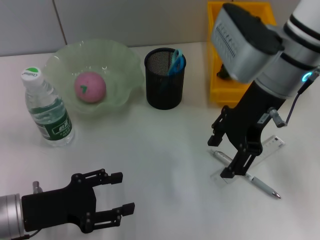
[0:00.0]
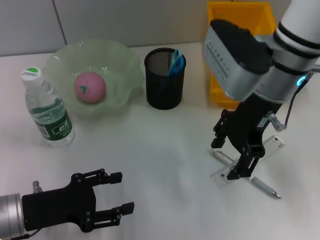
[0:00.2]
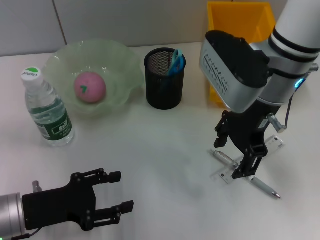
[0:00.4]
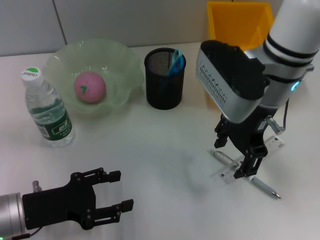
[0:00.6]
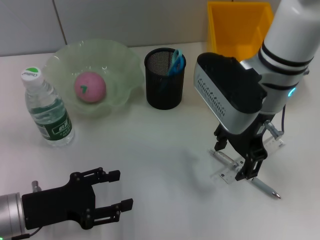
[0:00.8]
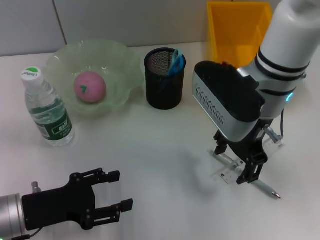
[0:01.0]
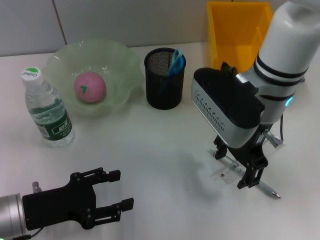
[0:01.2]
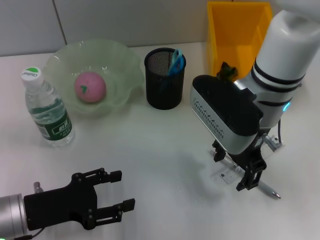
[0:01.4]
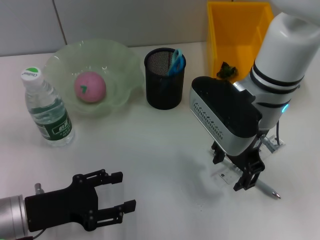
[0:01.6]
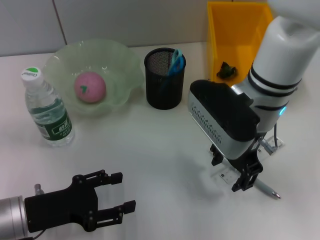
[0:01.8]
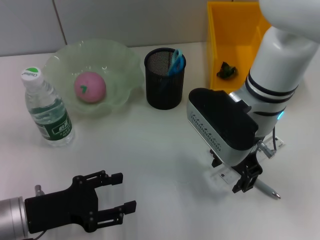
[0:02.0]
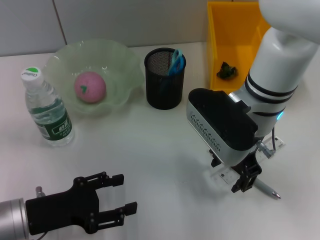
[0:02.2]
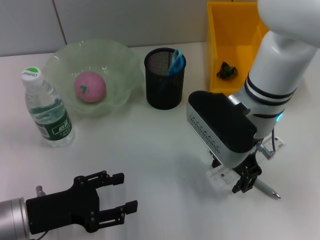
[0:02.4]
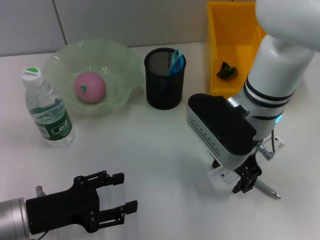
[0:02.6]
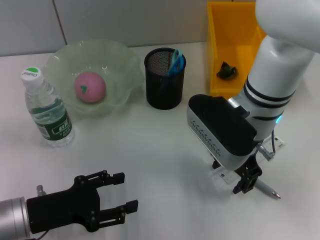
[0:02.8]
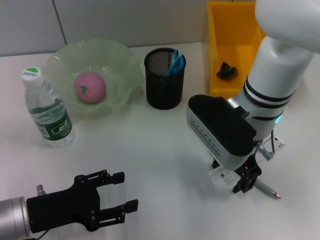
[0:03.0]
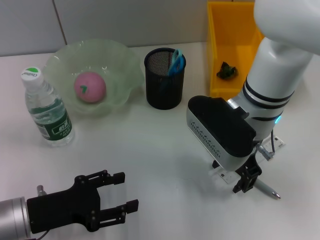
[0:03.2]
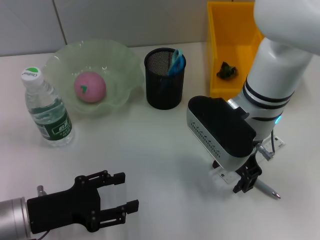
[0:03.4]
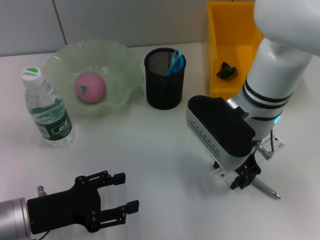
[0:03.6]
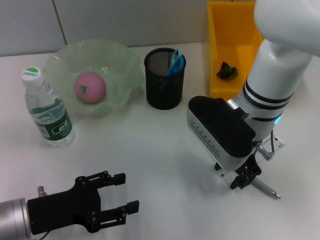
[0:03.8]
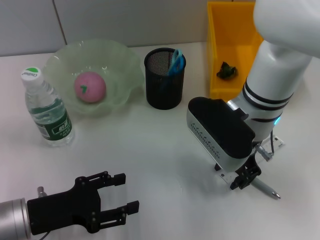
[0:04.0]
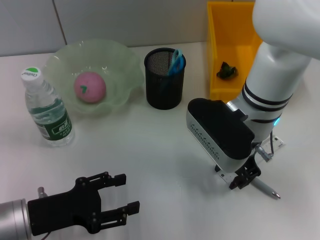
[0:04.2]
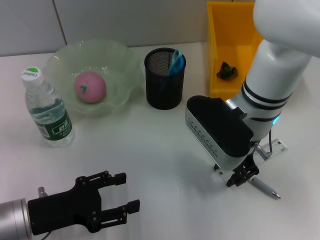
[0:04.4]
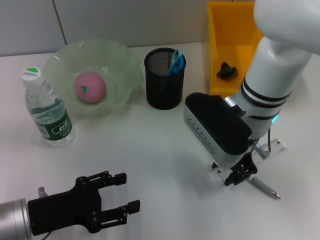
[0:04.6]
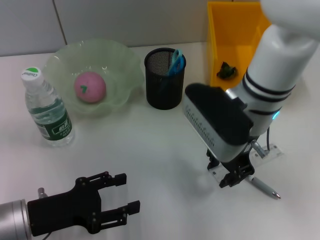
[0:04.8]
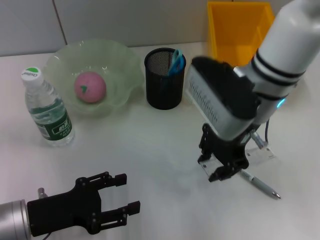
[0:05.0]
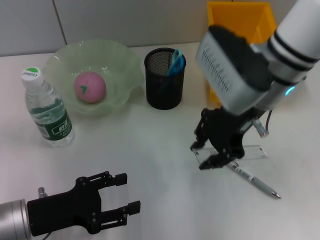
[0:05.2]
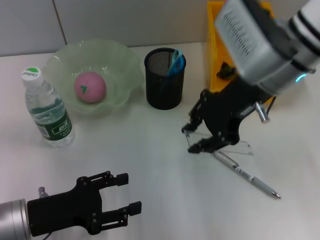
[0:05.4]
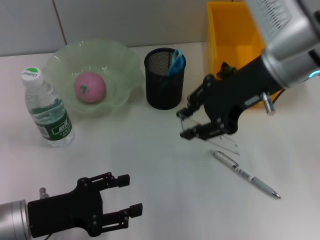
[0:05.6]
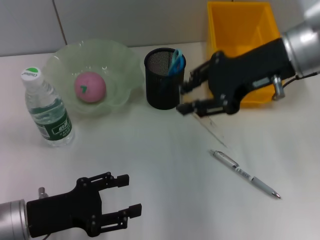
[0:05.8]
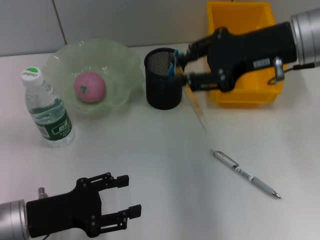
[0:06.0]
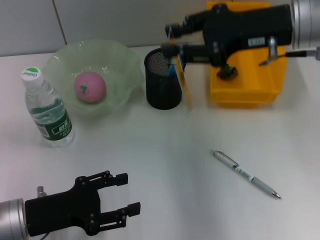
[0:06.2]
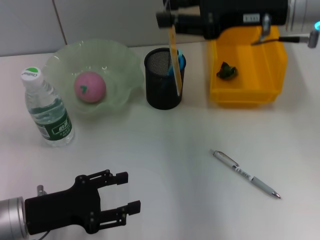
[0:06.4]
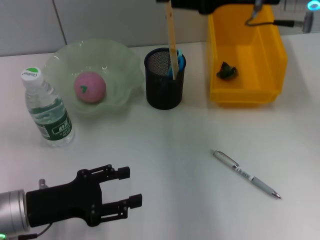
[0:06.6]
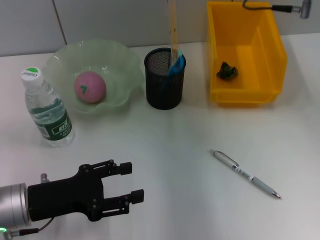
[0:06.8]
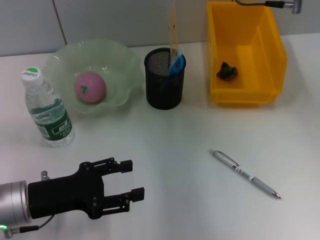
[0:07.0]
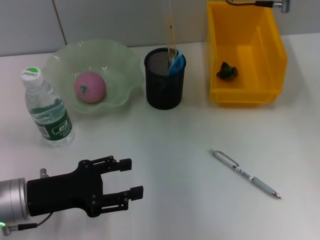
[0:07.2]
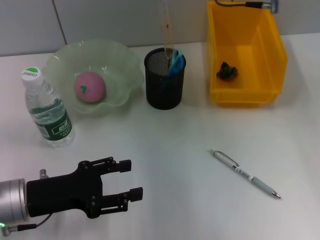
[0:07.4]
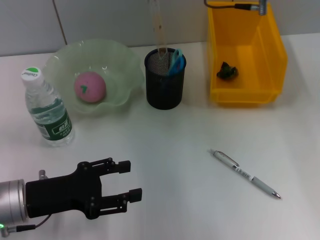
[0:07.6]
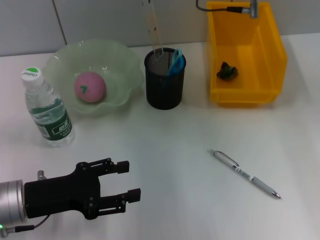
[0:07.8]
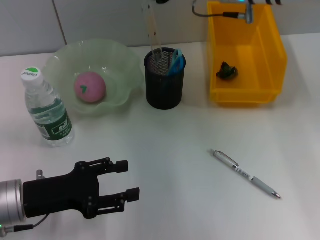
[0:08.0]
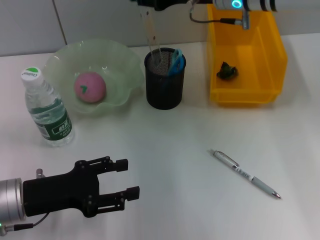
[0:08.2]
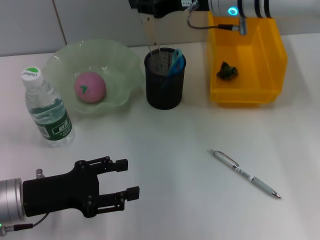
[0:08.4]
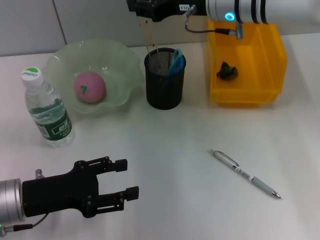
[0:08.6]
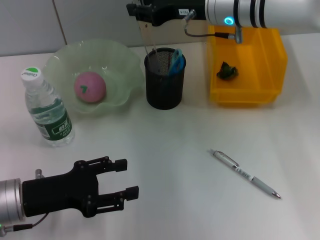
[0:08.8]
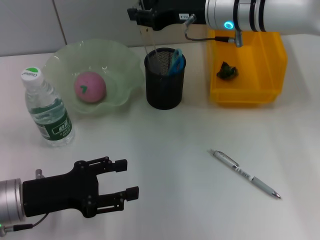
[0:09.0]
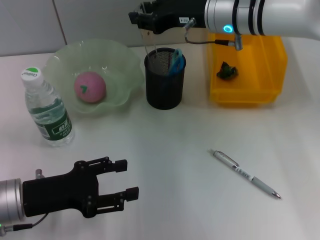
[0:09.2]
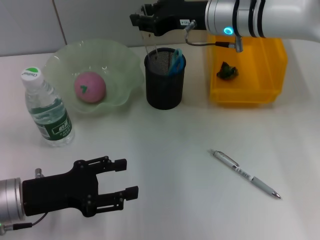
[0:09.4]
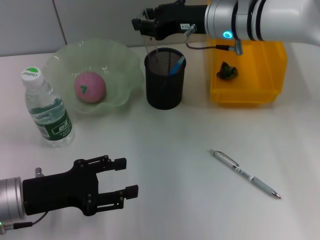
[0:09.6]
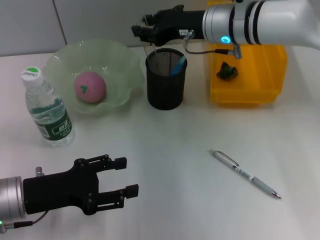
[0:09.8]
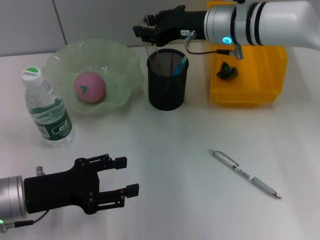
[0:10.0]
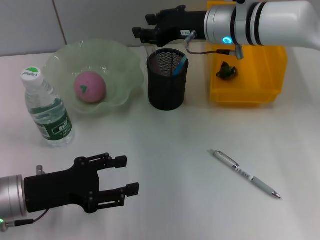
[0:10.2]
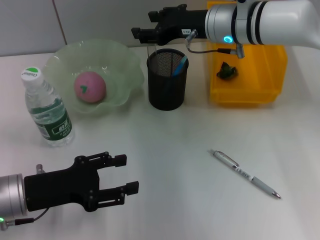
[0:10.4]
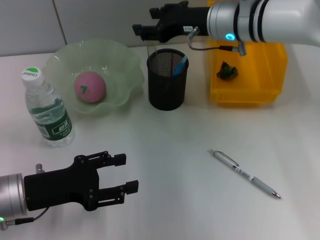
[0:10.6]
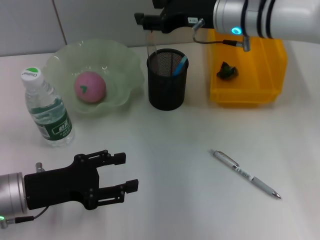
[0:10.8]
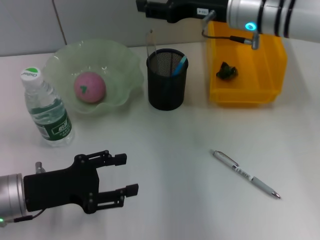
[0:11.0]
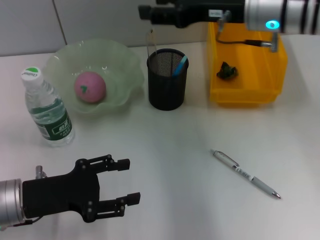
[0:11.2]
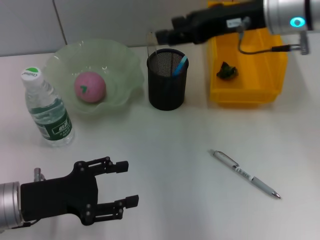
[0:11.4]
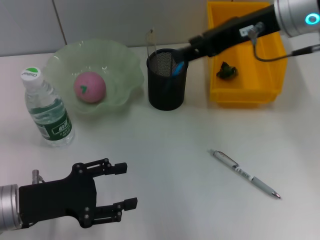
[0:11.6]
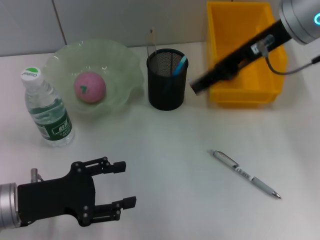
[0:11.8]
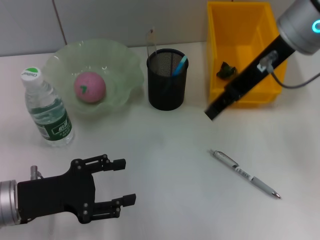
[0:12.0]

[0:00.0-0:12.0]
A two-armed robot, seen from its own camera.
Step, 0:00.0 to 0:04.6: Grab the ruler with the right hand.
Step, 0:04.8 to 0:10.2: Place the ruler into the pen holder with the right hand.
0:00.0 to 0:01.6: The right gripper shifts by roughly 5 cm.
0:01.6 to 0:03.0: The grippers stay close to where they were, moving slightly.
0:03.0 to 0:04.4: Neither gripper changes place.
0:04.4 to 0:06.0: The right gripper goes about 15 cm upward and to the right.
0:06.0 to 0:07.6: The right gripper goes approximately 10 cm forward.
0:07.6 to 0:09.0: The right gripper heads downward, covering some 5 cm.
0:09.0 to 0:10.4: The grippers make only small movements.
0:10.4 to 0:12.0: The right gripper travels upward and backward by about 15 cm.

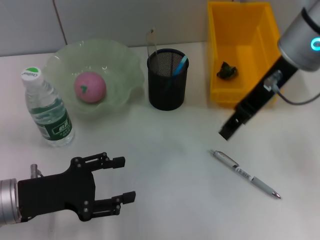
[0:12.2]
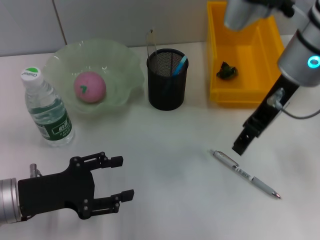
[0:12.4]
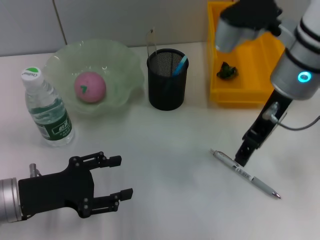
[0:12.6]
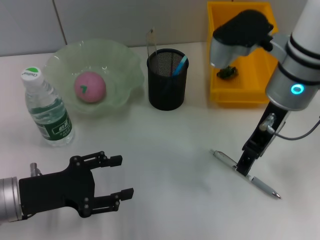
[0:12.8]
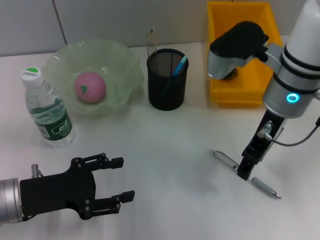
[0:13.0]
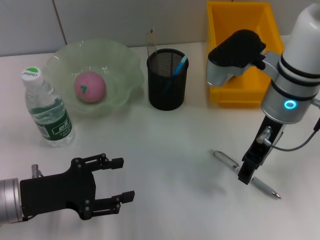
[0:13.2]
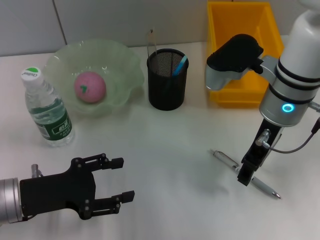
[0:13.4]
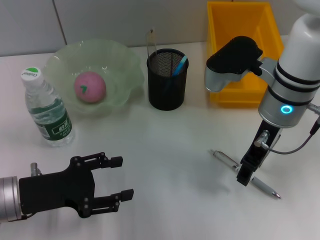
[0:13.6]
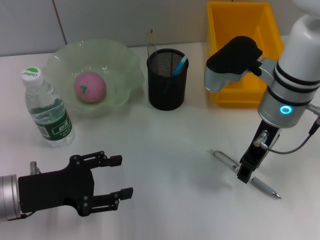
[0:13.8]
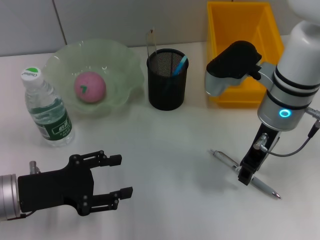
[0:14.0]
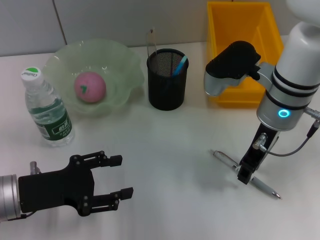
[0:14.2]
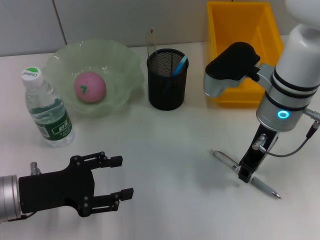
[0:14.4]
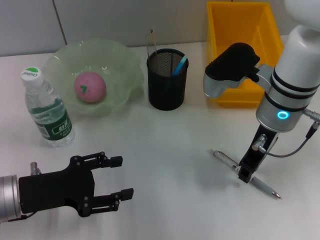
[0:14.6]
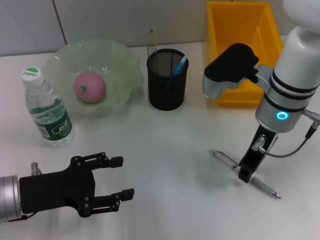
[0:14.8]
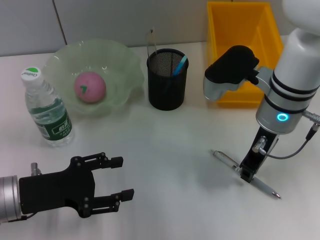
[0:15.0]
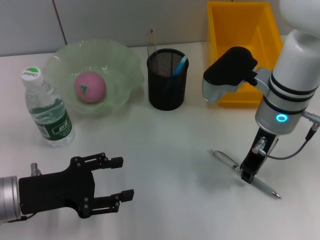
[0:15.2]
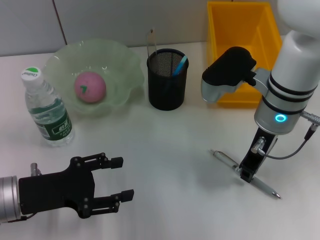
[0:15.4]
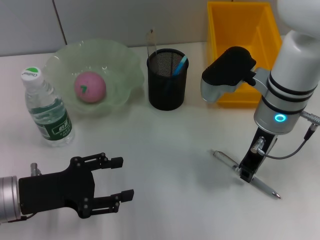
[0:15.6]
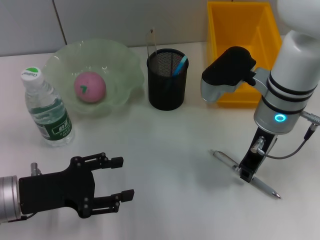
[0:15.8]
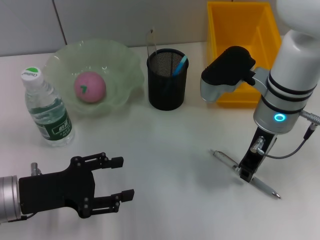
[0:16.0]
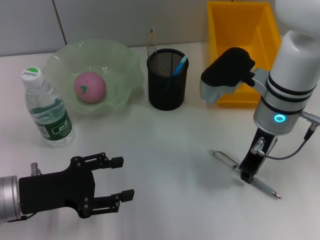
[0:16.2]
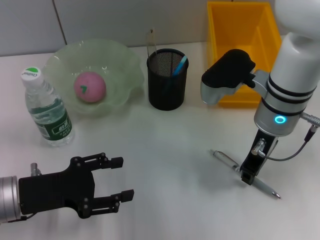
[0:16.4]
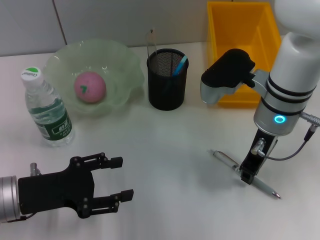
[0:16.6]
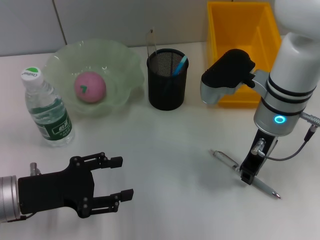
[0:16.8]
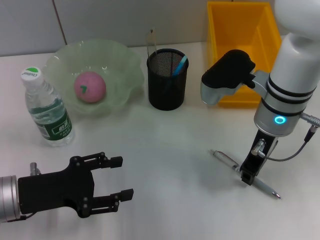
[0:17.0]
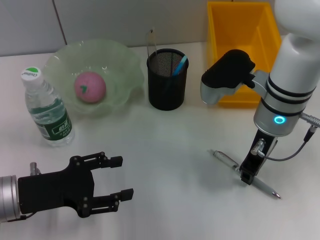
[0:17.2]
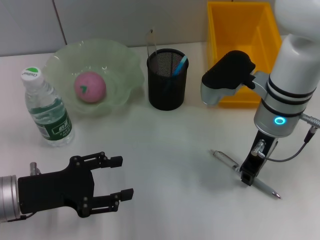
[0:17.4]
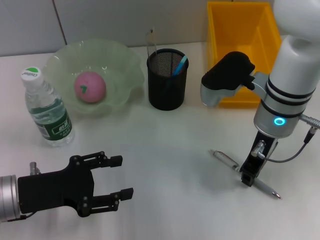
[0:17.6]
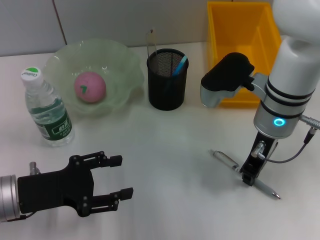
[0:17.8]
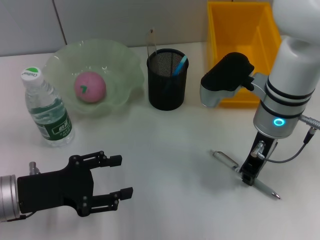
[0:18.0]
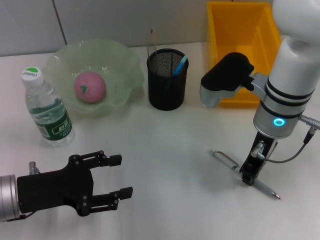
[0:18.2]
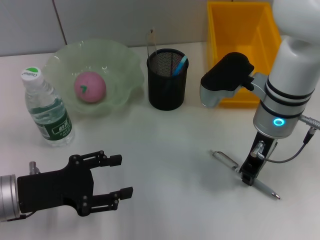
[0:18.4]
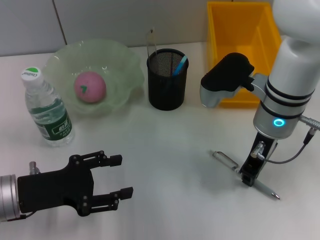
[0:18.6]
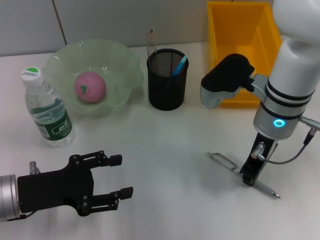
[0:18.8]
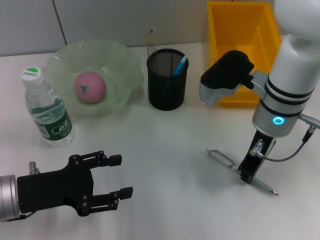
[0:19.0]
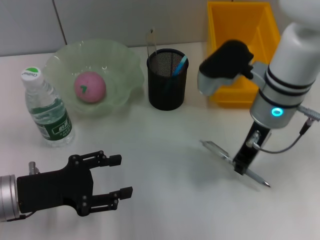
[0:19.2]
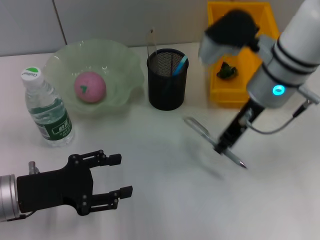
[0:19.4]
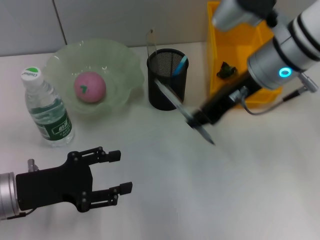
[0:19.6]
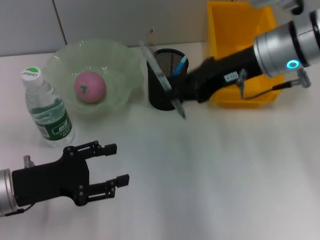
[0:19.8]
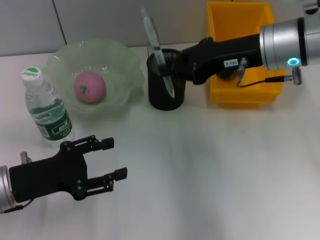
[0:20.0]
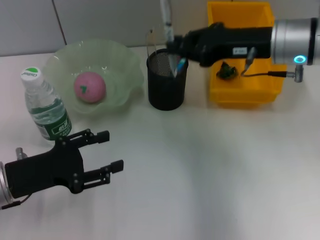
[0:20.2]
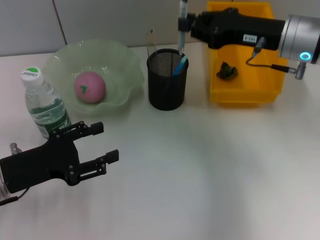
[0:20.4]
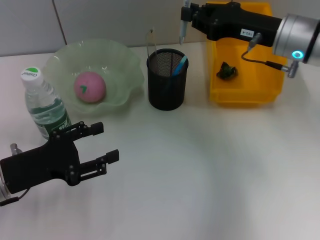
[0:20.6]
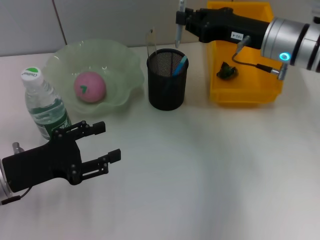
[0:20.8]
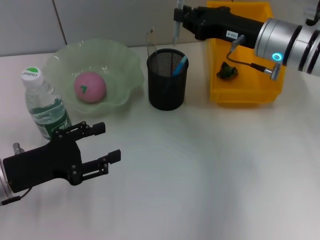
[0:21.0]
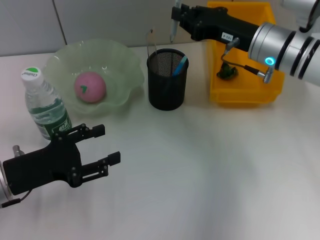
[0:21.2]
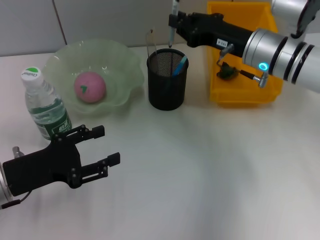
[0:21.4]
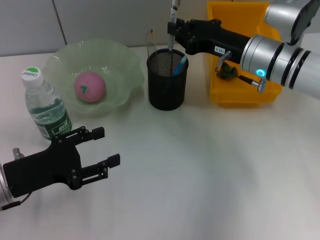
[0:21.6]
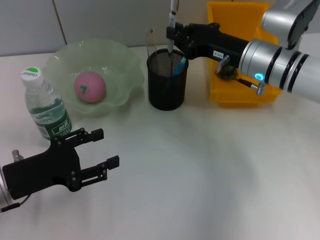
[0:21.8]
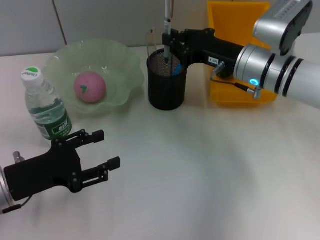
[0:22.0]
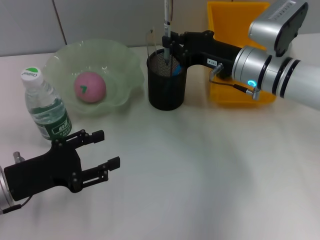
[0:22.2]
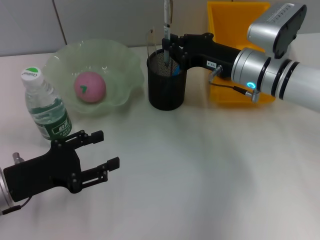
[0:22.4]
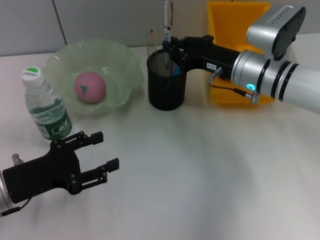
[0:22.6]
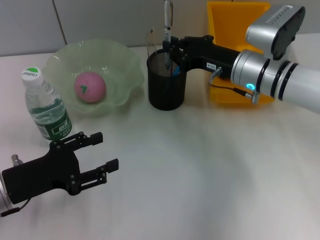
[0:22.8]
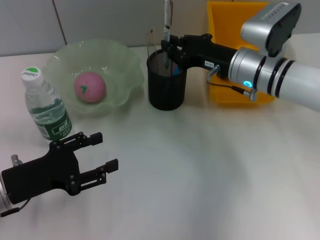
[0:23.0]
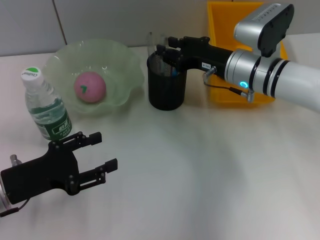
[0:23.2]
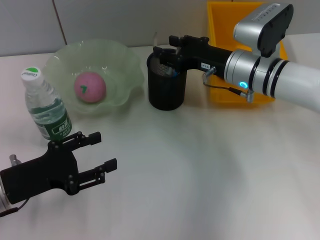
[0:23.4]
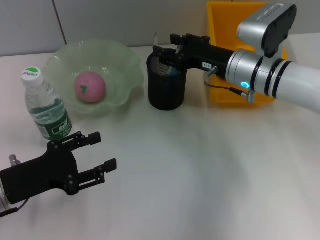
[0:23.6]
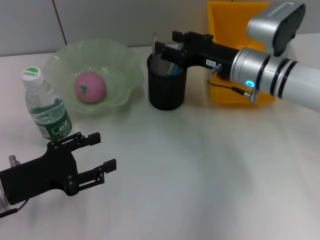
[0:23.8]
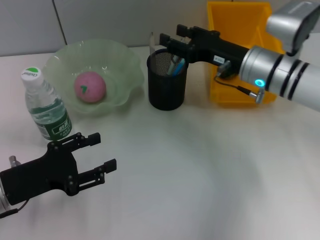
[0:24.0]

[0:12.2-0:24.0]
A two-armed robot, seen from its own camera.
Step, 0:12.2 to 0:18.8: Grab the gray spring-action pen with the right hand.
Step, 0:19.0 to 0:23.4: Place the gray spring-action pen into the pen holder with the right hand.
0:12.2 to 0:13.6: The right gripper travels downward by approximately 10 cm.
0:13.6 to 0:15.2: The right gripper closes.
0:15.2 to 0:18.2: Neither gripper changes place.
0:18.2 to 0:19.6: The right gripper heads upward, covering approximately 5 cm.
0:19.6 to 0:21.0: The right gripper travels downward by some 5 cm.
0:21.0 to 0:22.6: The right gripper moves roughly 5 cm.
0:22.6 to 0:24.0: The right gripper opens.
